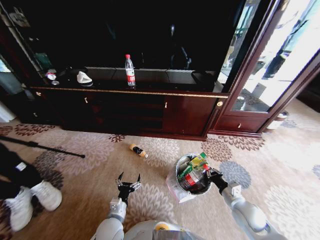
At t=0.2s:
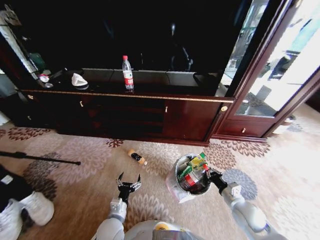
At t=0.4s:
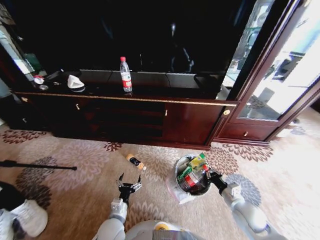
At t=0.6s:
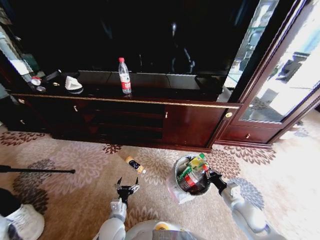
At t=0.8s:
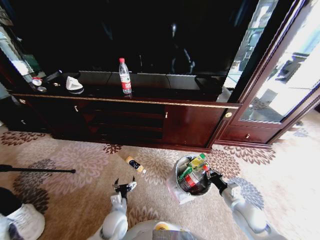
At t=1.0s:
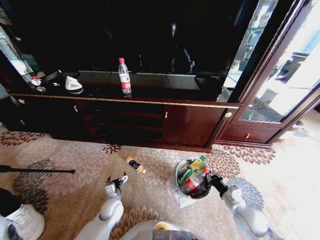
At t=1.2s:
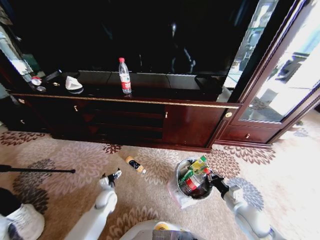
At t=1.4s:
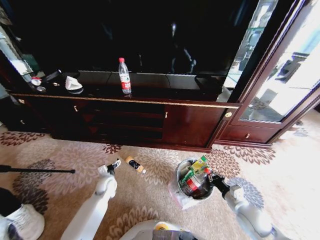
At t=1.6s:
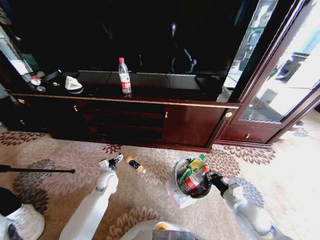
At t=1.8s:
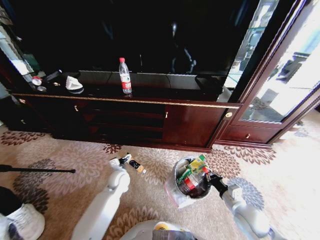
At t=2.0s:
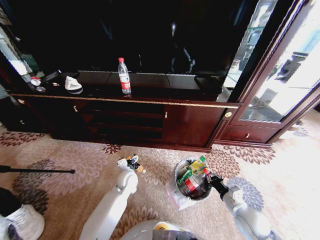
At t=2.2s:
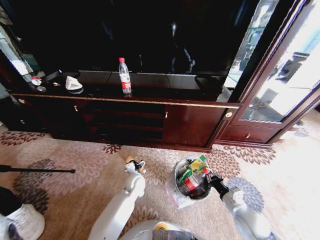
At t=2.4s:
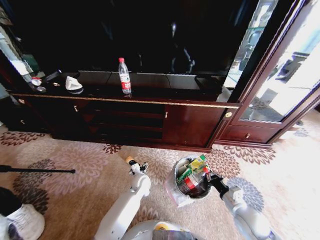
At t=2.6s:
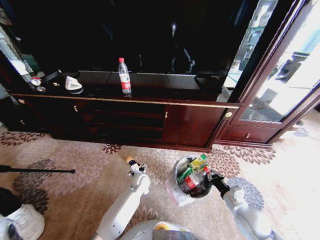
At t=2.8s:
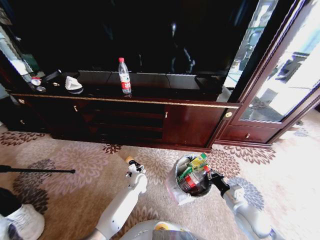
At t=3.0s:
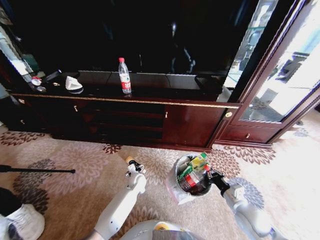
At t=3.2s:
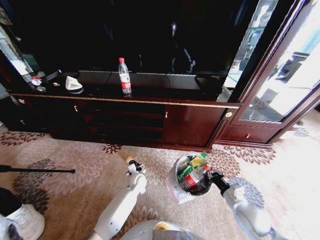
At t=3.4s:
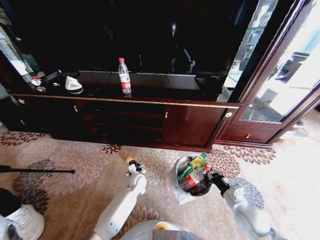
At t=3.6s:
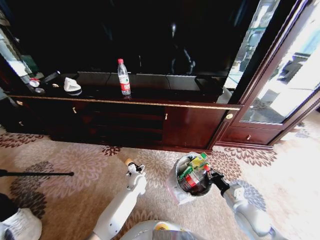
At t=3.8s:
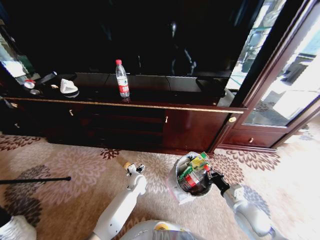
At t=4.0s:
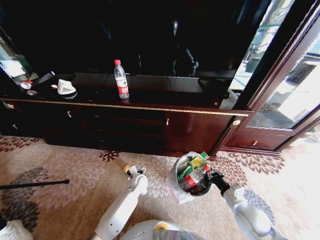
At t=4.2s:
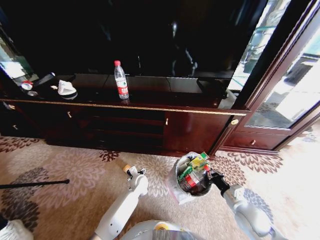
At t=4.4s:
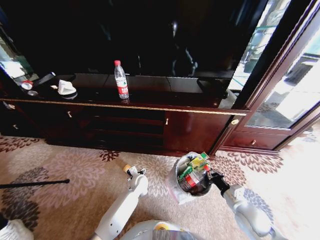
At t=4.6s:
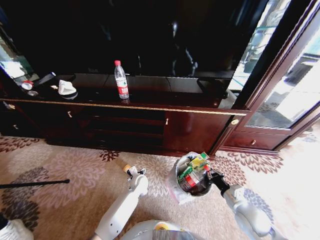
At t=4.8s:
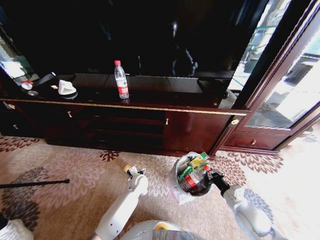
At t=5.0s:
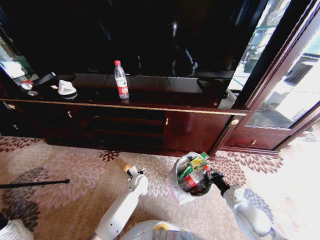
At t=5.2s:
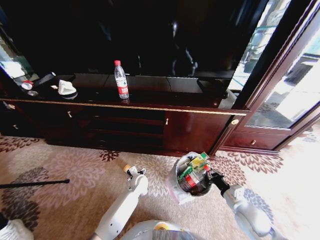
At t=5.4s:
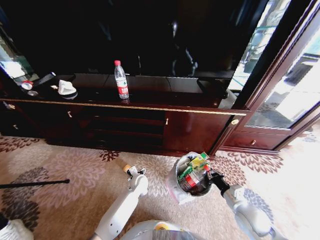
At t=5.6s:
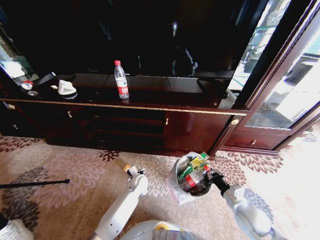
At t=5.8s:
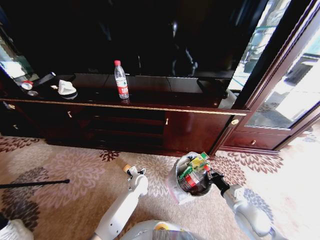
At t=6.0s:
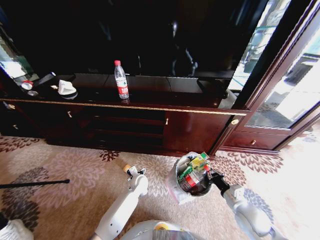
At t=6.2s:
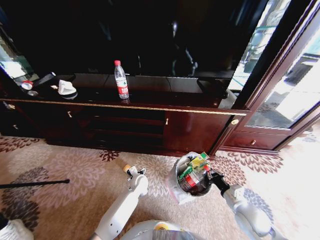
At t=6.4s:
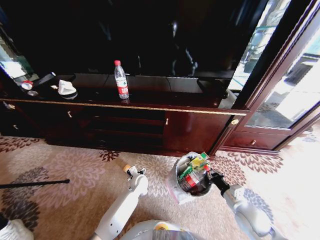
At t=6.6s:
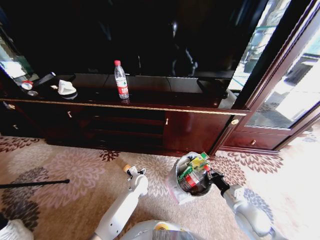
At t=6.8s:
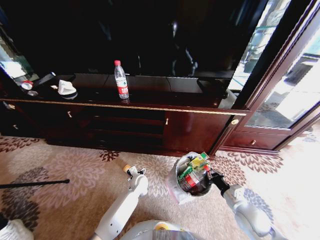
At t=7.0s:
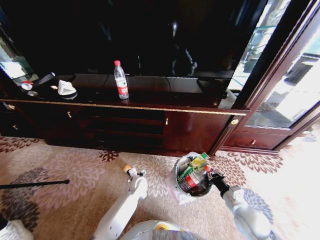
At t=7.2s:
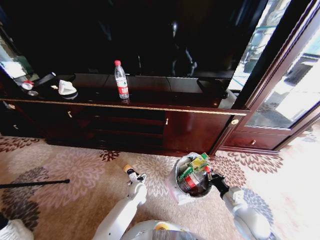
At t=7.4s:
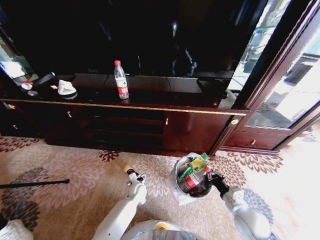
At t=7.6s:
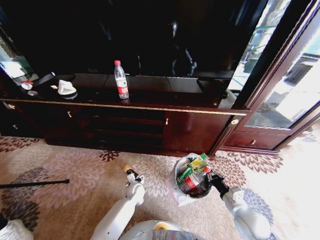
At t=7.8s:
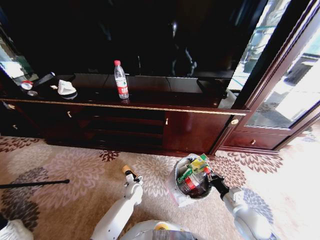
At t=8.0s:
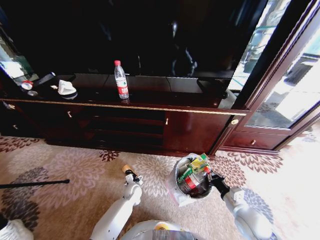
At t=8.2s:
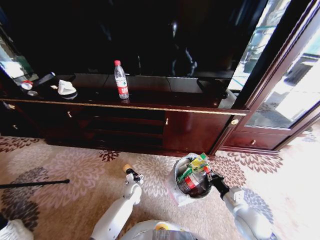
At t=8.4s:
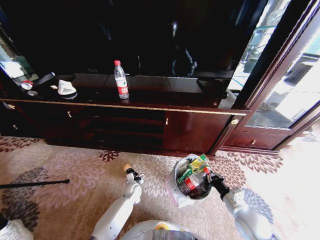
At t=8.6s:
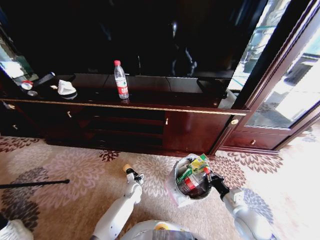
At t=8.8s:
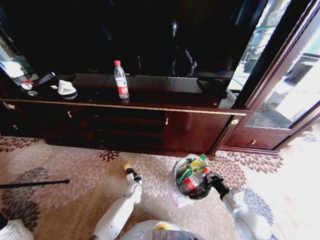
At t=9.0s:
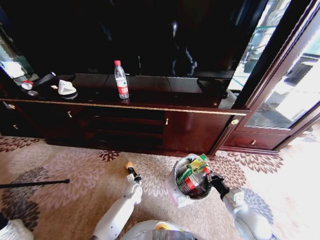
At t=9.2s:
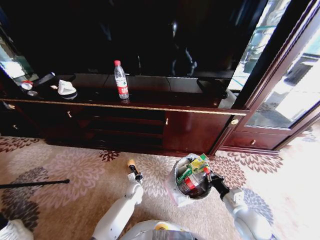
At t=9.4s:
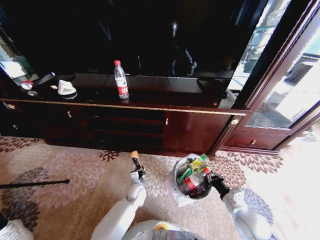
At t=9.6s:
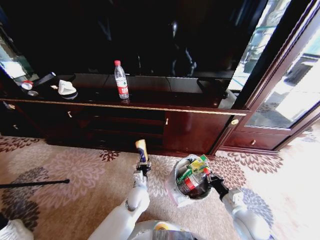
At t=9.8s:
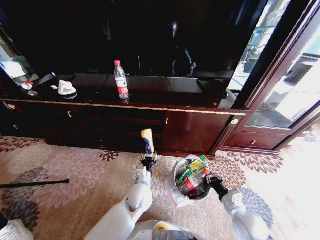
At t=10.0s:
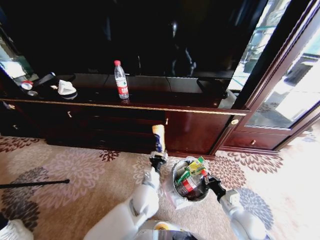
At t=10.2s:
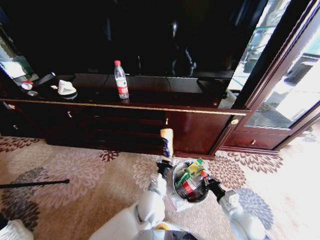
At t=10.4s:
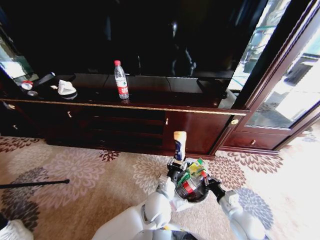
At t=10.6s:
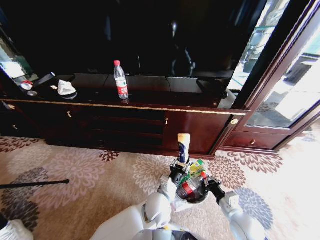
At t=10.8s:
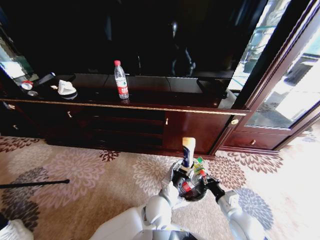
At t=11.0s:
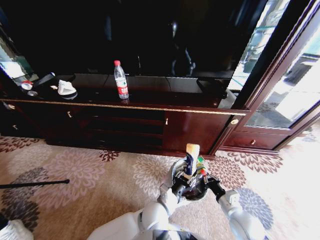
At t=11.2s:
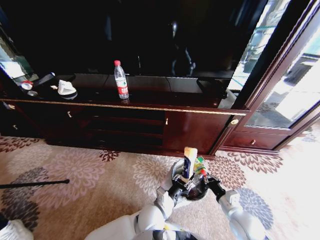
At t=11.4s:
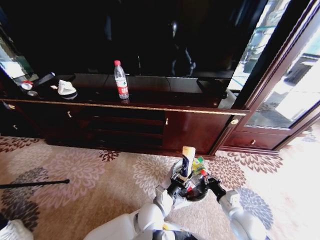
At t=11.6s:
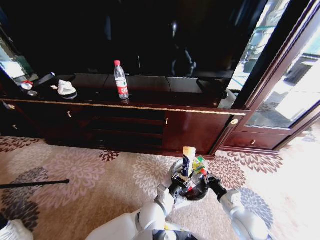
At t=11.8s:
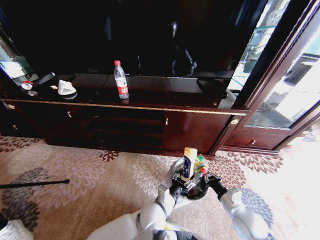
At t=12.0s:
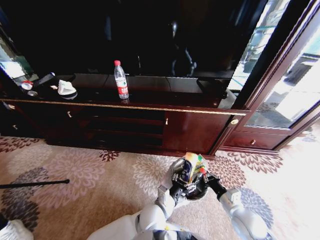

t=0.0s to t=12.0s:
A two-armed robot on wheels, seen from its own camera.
Task of the whole recording: Pick up the trash from the ground and place it into the trash bin.
t=0.0s to t=1.6s: The left gripper heads forward and to the left, covering roughly 20 cm.
t=1.6s to t=3.0s: The left gripper heads to the right, covering roughly 15 cm.
t=4.4s to t=6.0s: The two grippers keep their place.
t=6.0s to t=7.6s: The left gripper moves about 5 cm.
t=7.6s to t=9.0s: The left gripper moves about 5 cm.
t=9.0s to t=10.4s: The left gripper heads upward, to the right and backward, covering some 30 cm.
t=10.4s to t=12.0s: The grippers move only a little.

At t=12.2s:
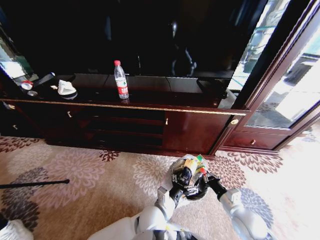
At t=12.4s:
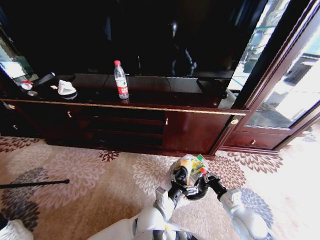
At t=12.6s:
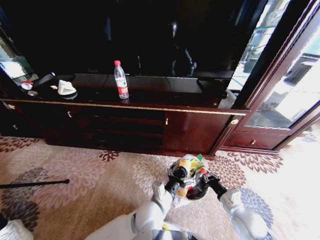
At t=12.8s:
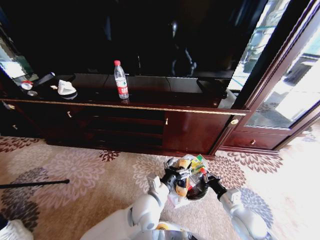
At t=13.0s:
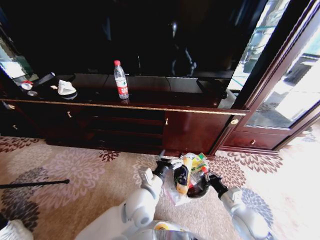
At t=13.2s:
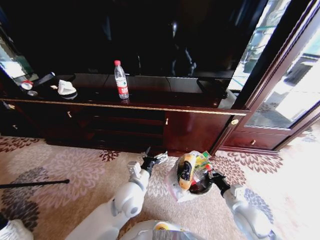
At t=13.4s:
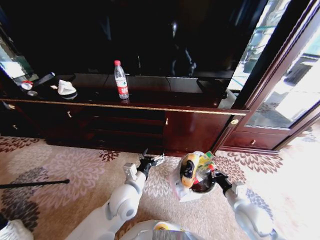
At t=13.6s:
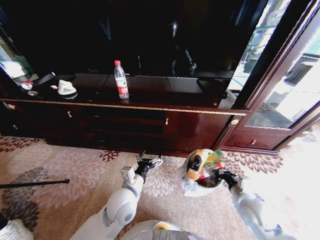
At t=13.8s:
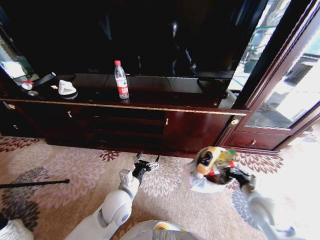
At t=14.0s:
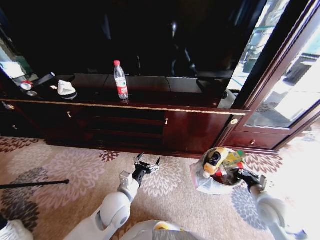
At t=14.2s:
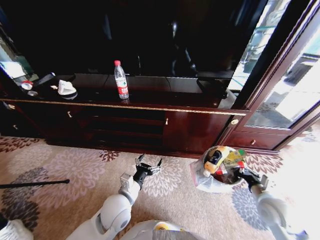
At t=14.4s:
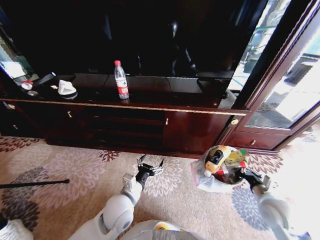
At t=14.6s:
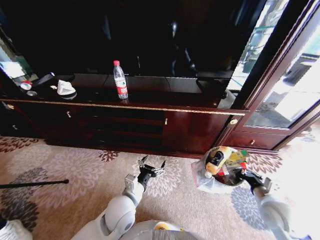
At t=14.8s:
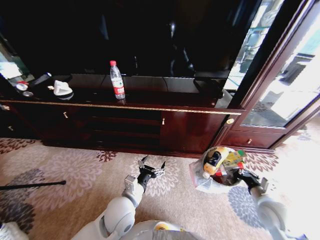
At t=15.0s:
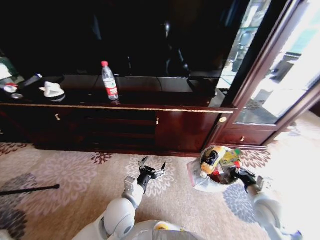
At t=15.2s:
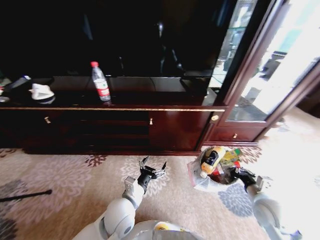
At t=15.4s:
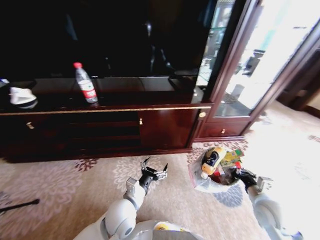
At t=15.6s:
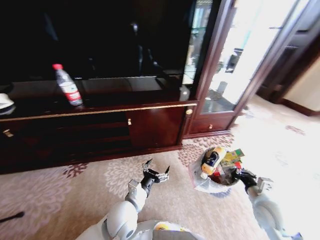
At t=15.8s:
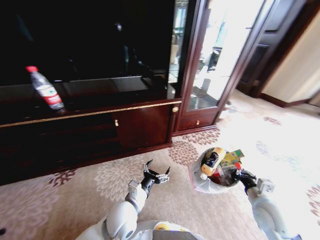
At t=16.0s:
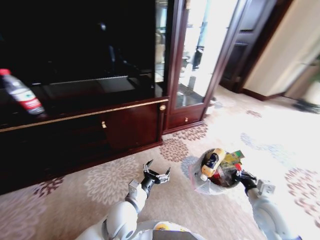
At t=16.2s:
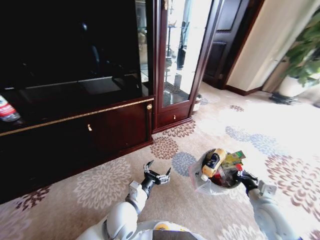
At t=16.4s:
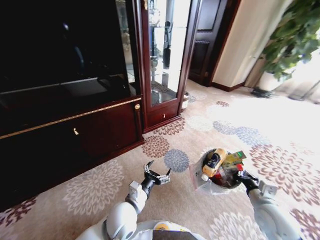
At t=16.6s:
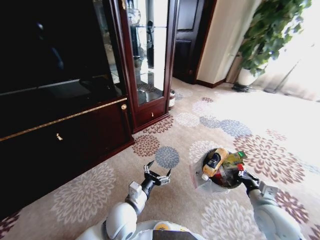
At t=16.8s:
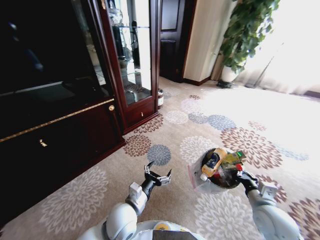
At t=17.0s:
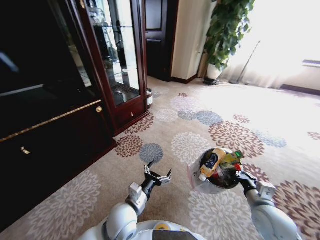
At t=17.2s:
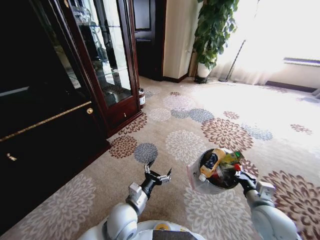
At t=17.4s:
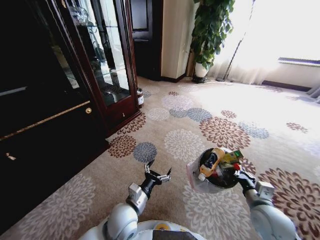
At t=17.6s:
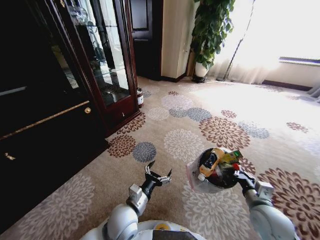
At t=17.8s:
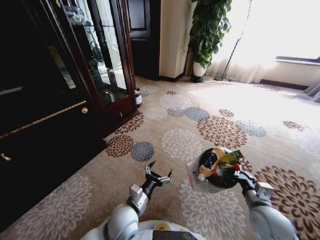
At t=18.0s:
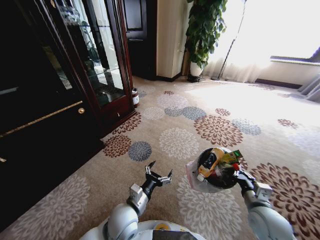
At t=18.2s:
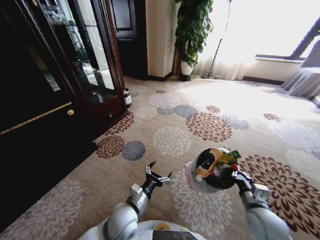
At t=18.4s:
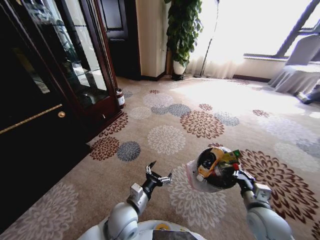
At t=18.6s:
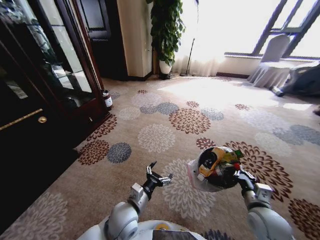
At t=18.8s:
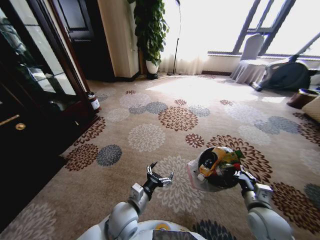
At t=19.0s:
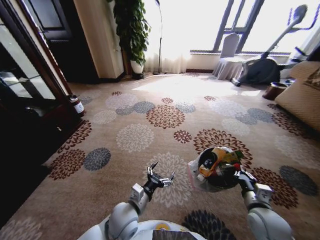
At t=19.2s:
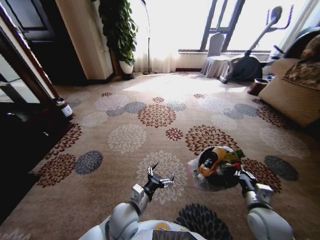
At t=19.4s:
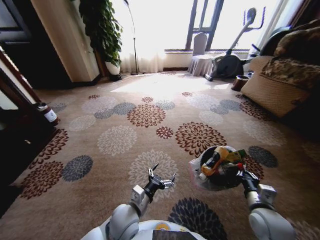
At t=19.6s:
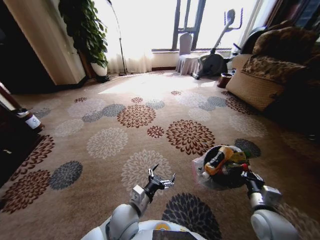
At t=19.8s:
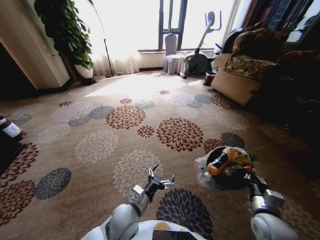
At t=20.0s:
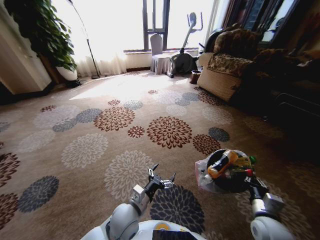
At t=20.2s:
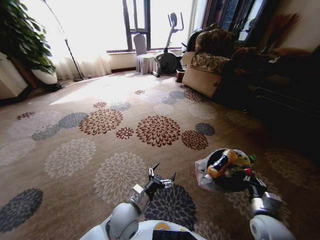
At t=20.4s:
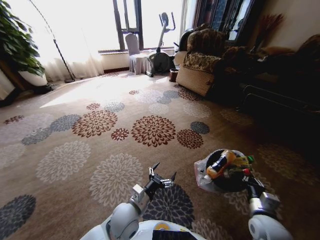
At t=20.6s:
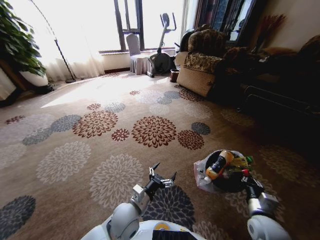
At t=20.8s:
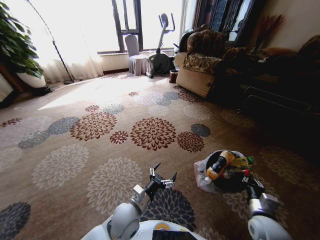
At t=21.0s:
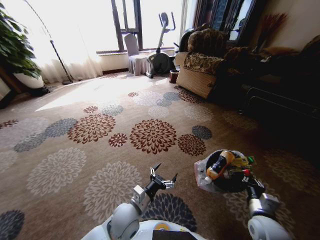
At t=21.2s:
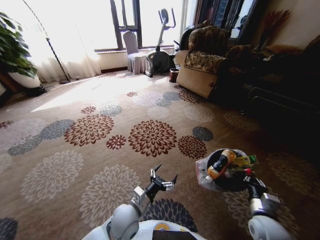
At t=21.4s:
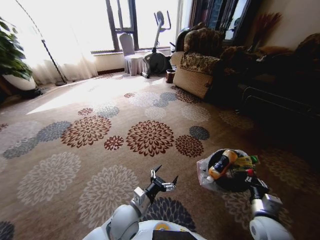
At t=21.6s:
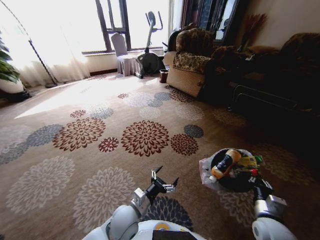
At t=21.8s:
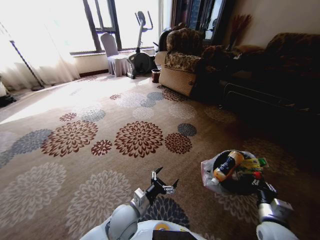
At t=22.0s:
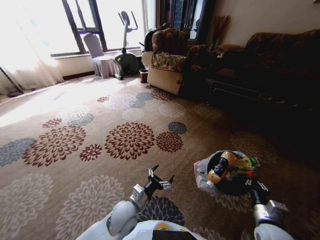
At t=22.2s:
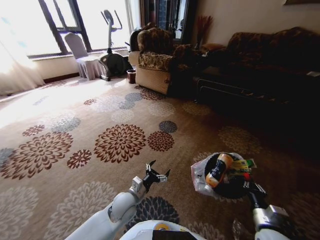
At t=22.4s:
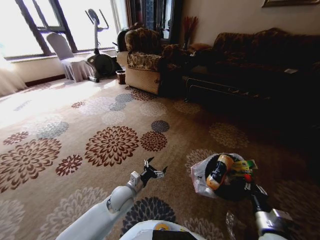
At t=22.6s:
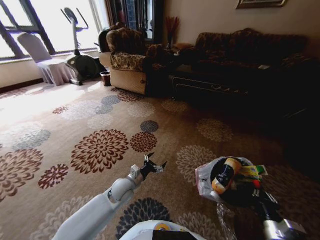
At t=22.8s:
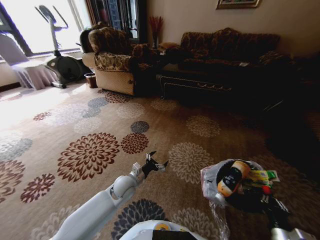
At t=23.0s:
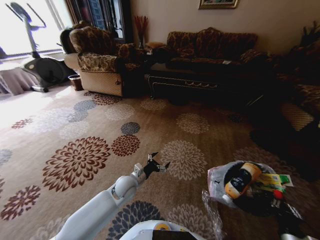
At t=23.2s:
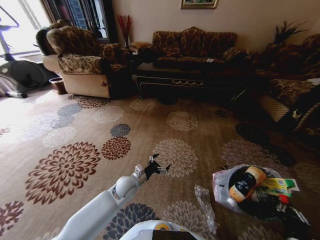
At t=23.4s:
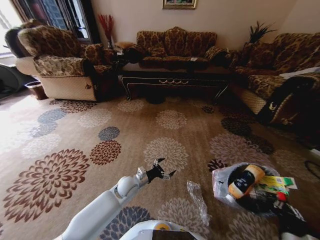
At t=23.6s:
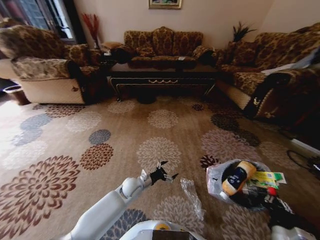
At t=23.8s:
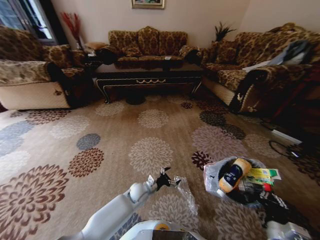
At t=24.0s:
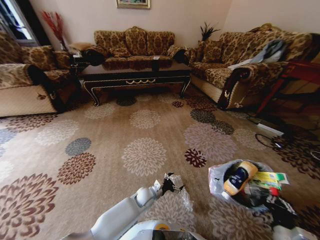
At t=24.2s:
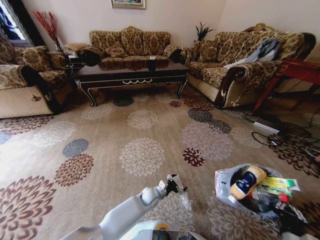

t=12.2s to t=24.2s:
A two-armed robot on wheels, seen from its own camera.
Task of the whole recording: Pick up the trash from the ground and place it into the trash bin.
t=12.2s to t=13.8s: The left gripper goes roughly 15 cm to the left and upward, while the right gripper is displaced upward by about 5 cm.
t=21.2s to t=22.6s: The left gripper shifts some 10 cm forward, while the right gripper is displaced backward by about 5 cm.
t=22.6s to t=24.2s: The right gripper moves about 5 cm. The left gripper shifts some 15 cm downward and to the right.
